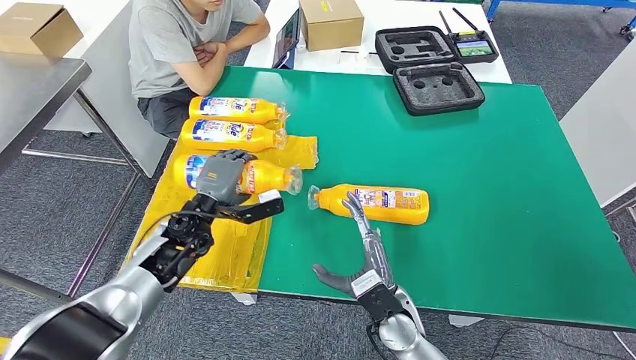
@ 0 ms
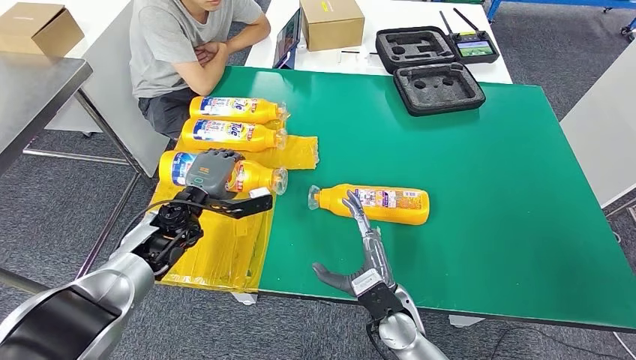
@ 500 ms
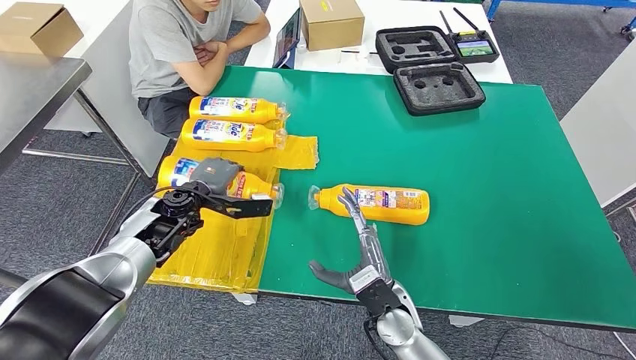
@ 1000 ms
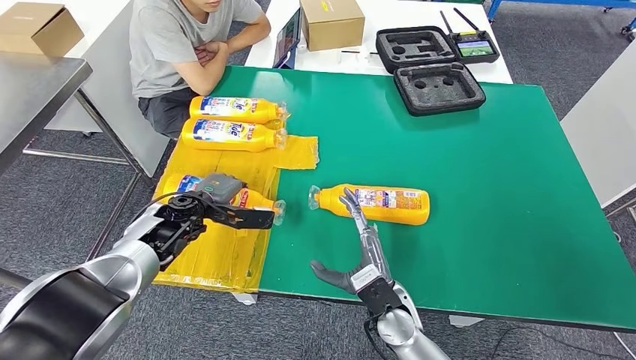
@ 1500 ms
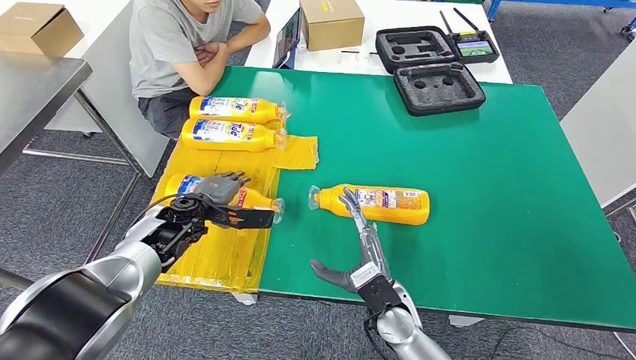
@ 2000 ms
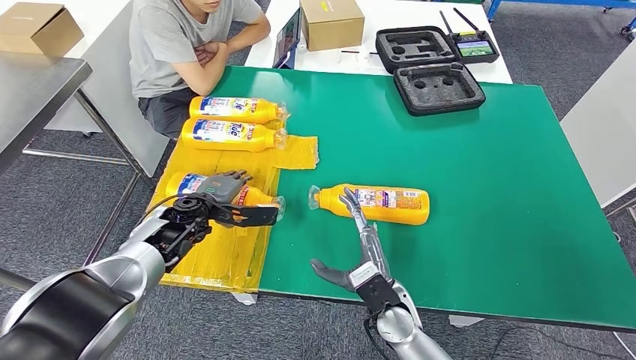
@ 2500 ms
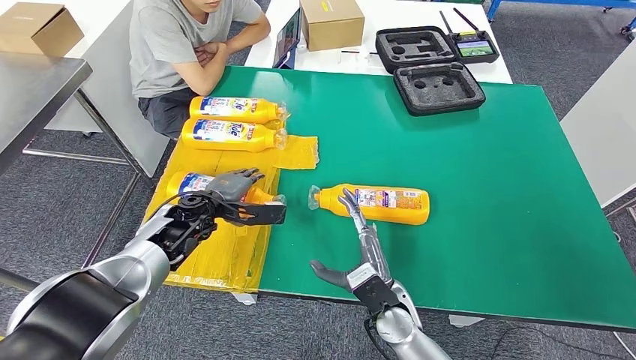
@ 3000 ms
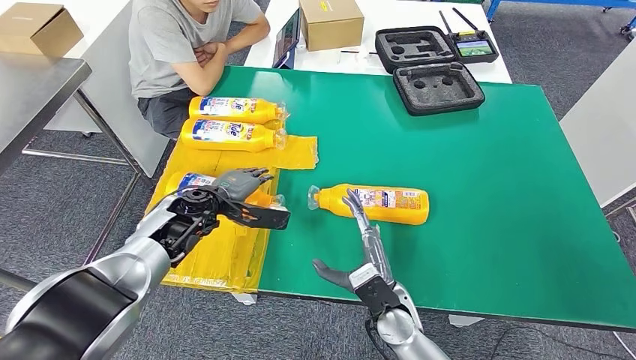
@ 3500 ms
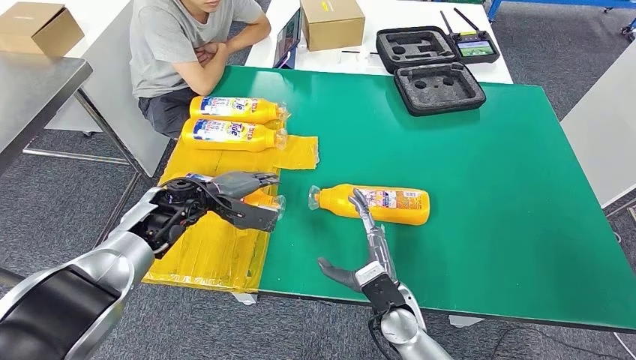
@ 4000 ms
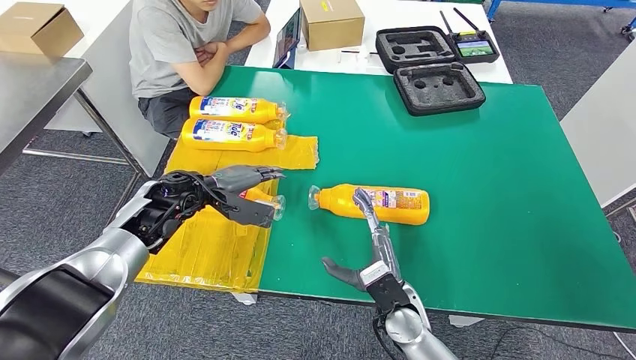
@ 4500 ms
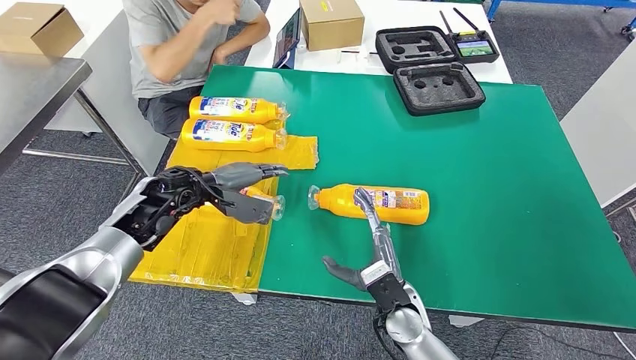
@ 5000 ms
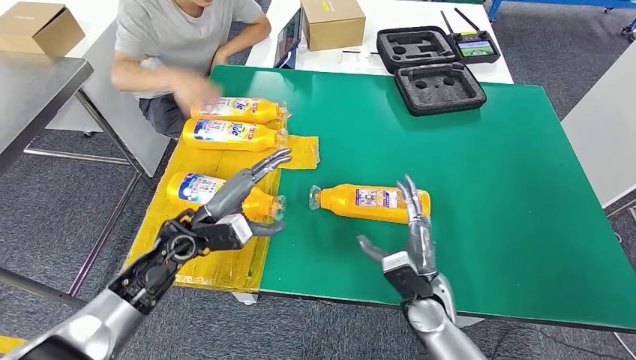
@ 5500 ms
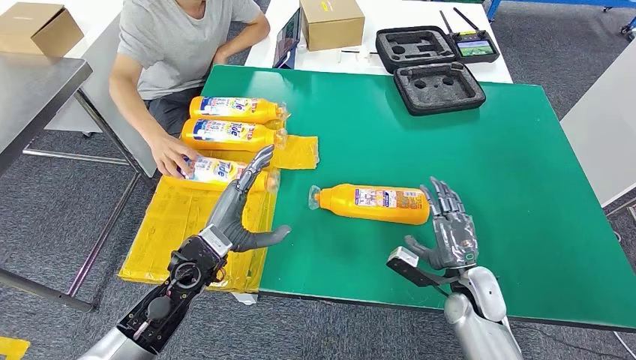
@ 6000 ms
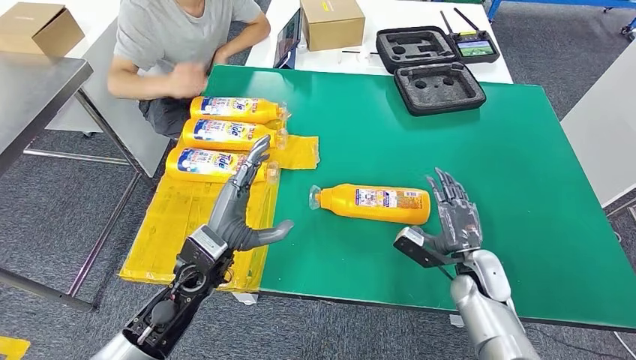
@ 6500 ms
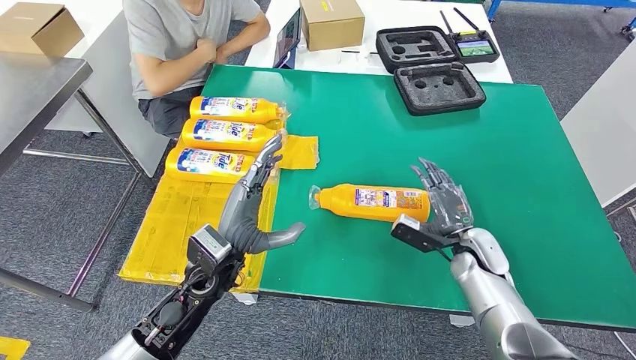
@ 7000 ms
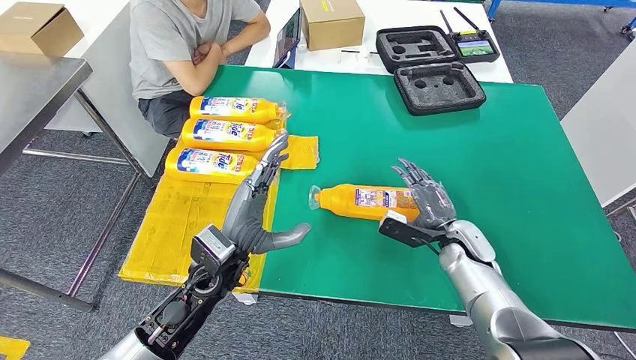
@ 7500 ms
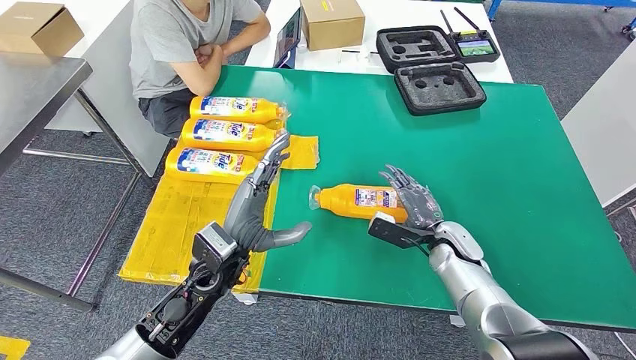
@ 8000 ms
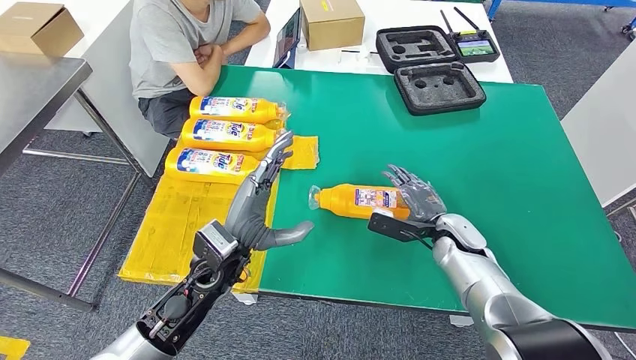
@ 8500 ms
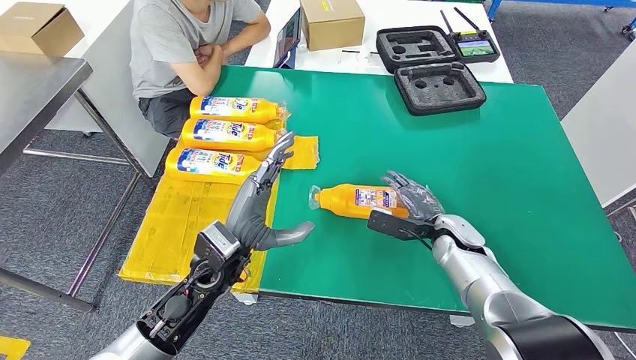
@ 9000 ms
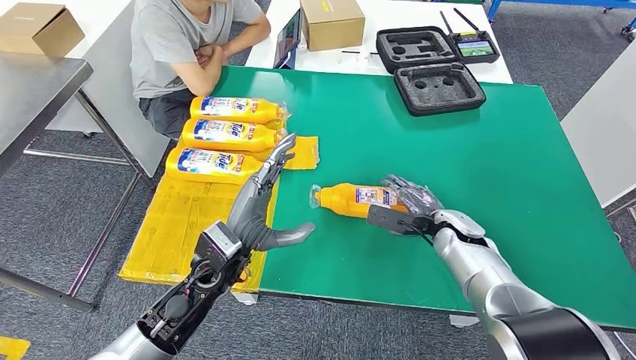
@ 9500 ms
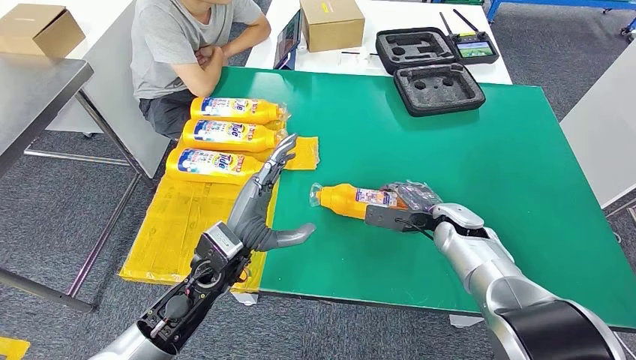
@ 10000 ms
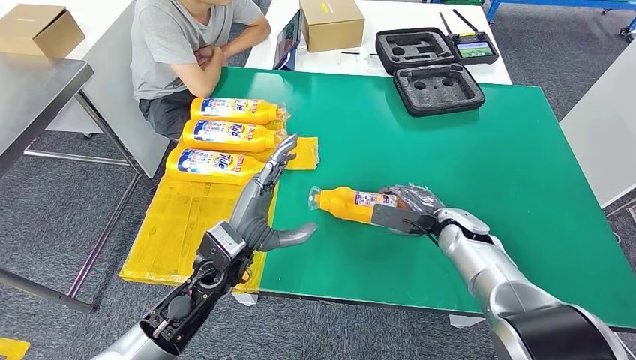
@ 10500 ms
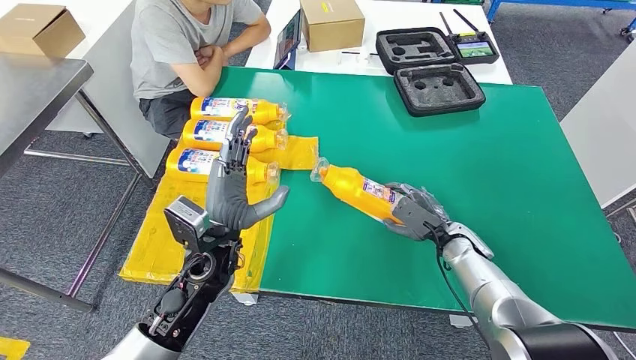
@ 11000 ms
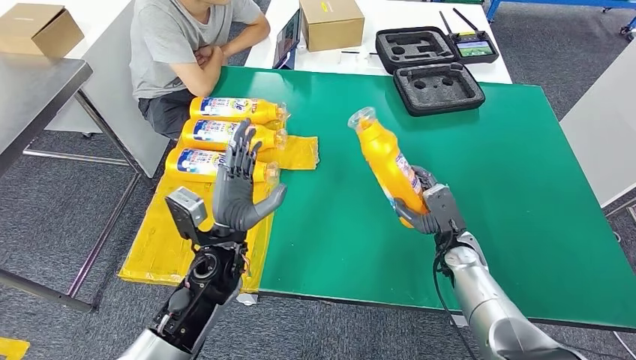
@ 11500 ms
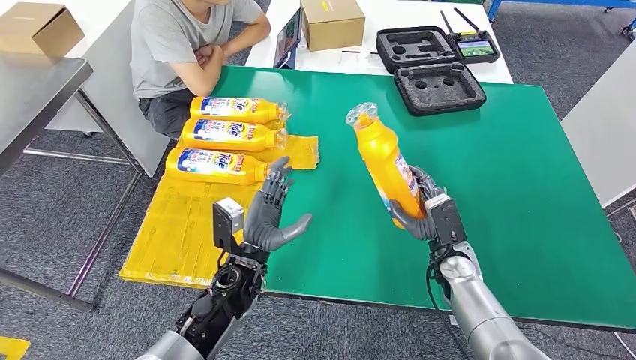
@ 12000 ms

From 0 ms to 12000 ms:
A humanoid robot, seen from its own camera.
Step, from 0 ms to 2000 ms: Flip the fast-moving consumer goods bottle to the front side.
From 6000 ms to 8000 ms: The left hand changes place by about 5 cm; the right hand heads forward, covering roughly 10 cm.
From 10000 ms to 12000 ms: The left hand heads downward, covering roughly 5 cm. The right hand travels backward by some 5 cm.

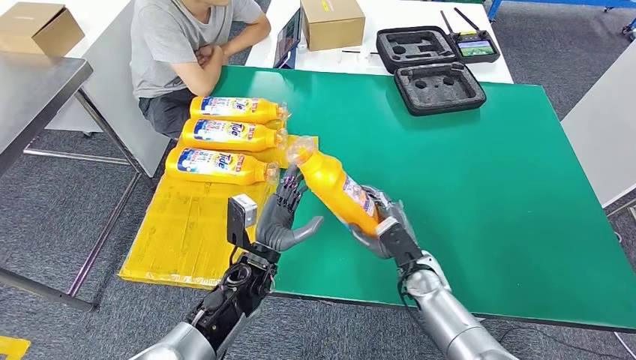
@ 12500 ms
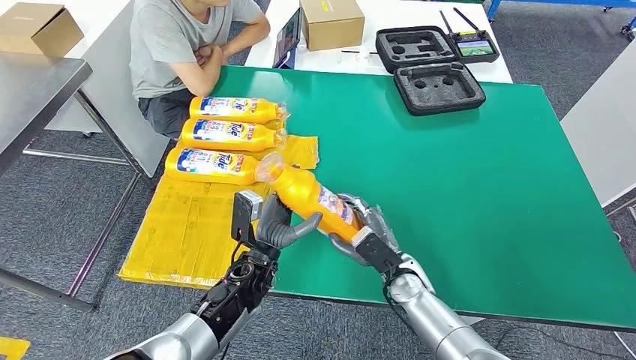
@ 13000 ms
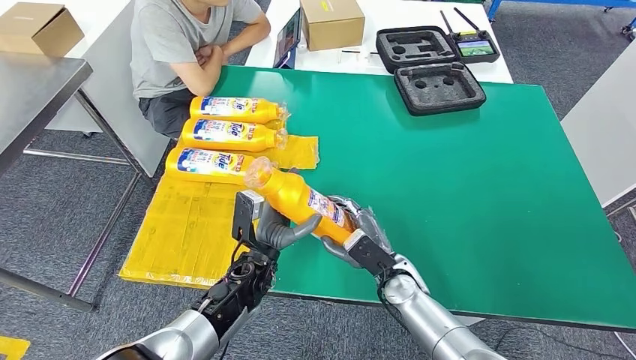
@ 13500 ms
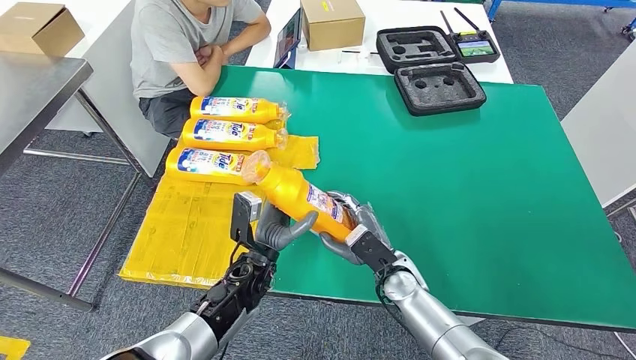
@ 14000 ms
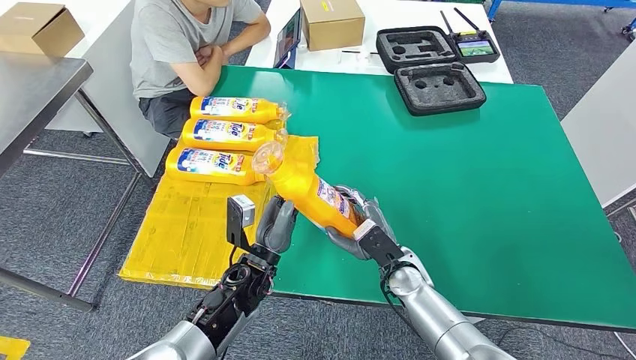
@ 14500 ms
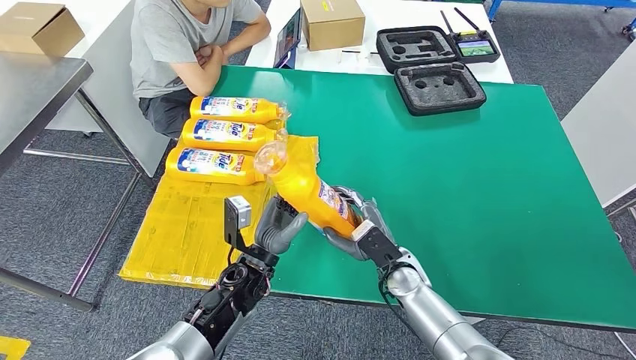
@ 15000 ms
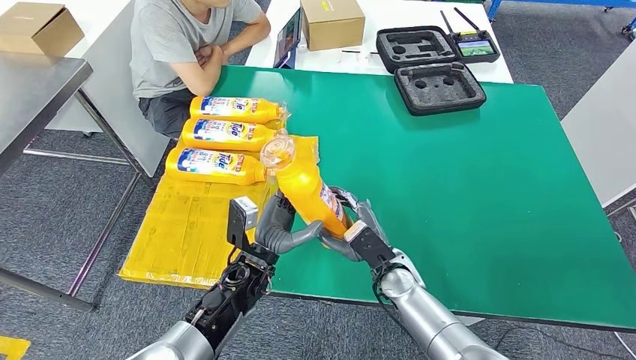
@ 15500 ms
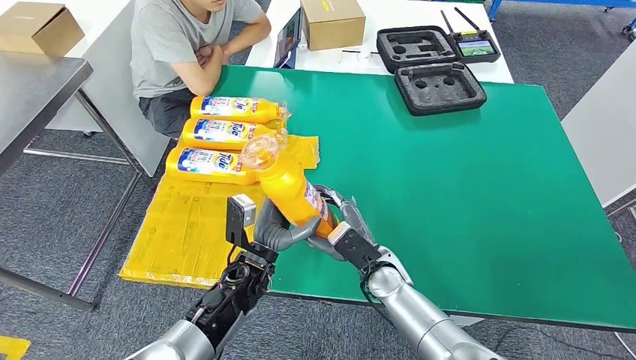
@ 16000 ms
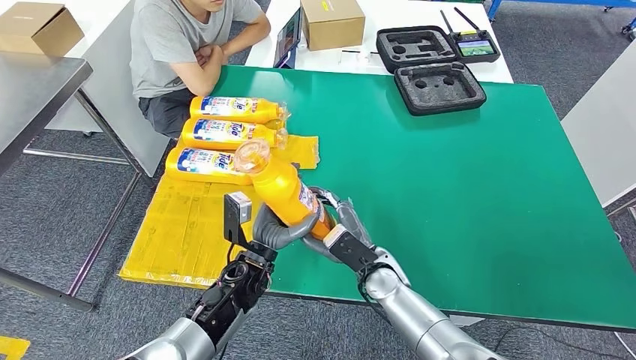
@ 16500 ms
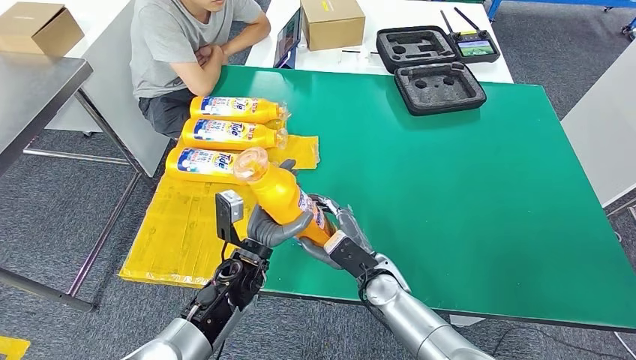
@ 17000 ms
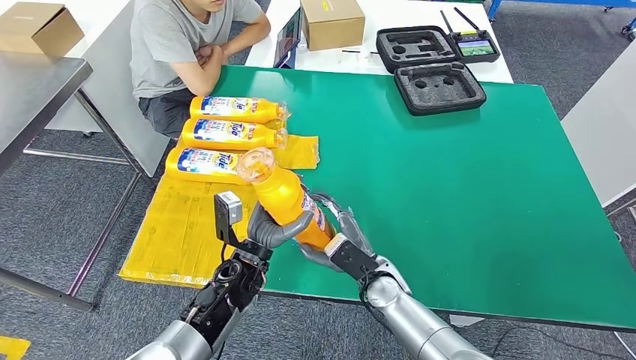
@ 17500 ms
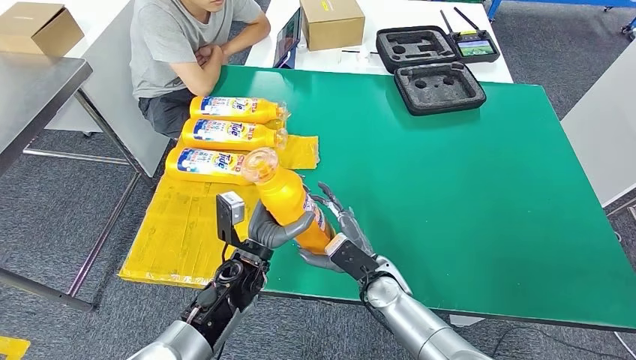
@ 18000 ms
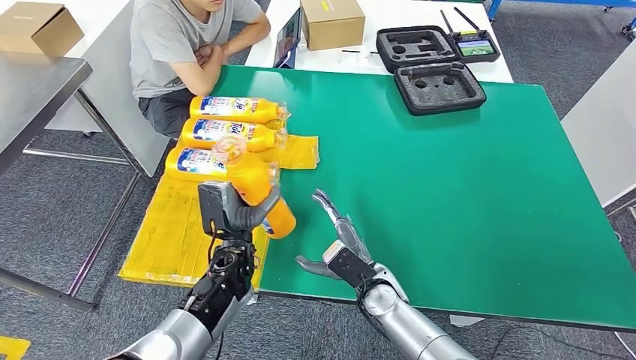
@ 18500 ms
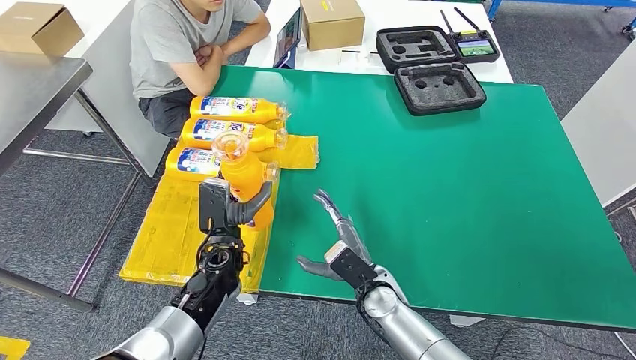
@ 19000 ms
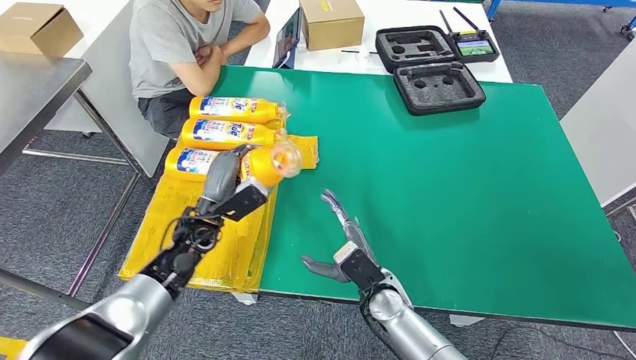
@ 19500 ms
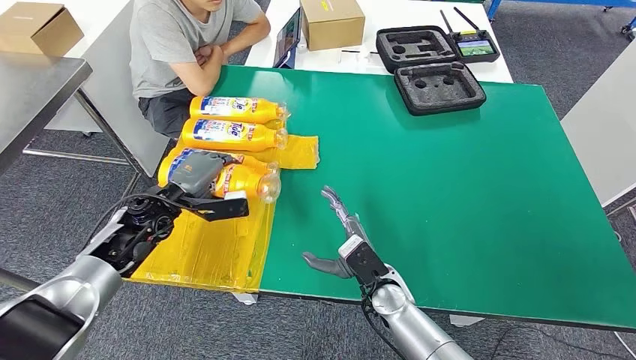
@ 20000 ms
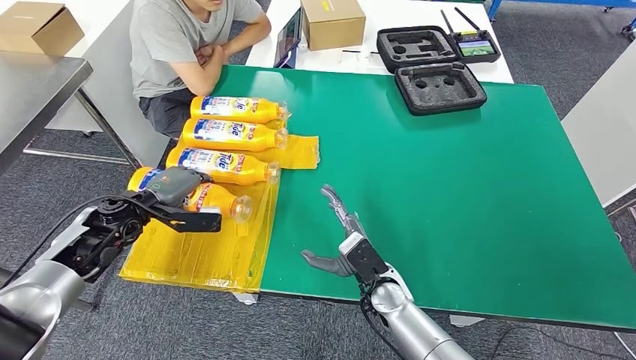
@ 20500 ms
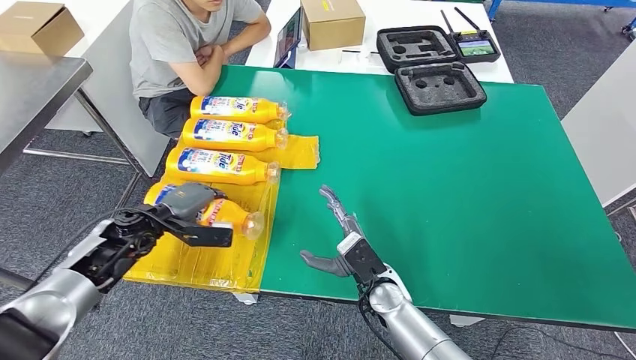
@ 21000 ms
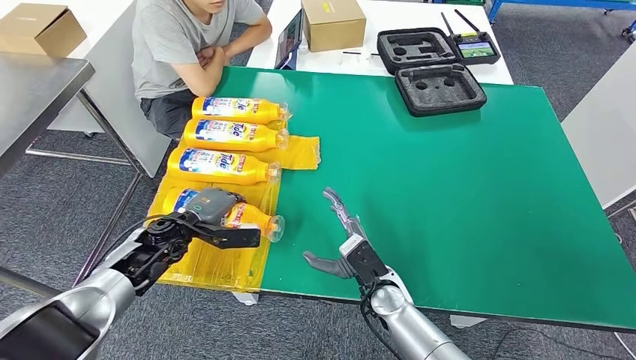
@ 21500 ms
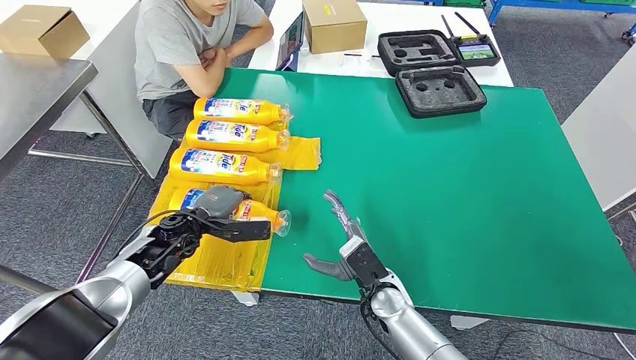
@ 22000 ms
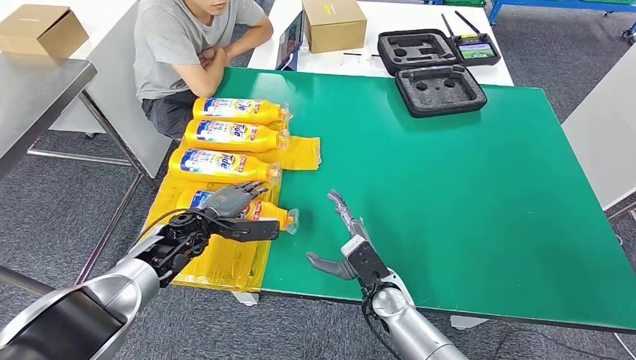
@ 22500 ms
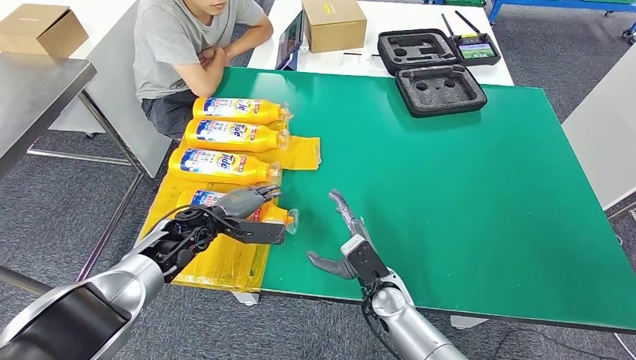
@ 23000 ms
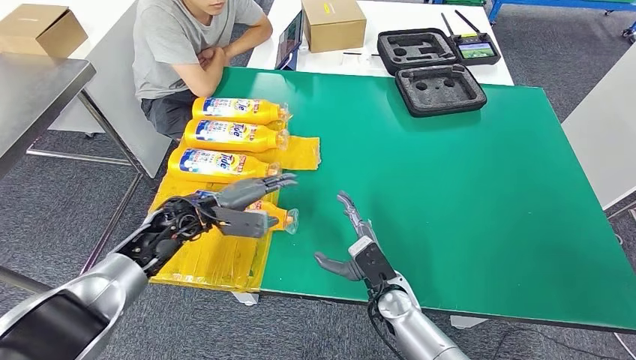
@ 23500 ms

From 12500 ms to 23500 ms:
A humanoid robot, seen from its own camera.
From 12500 ms to 14500 ms: There are only small adjustments of the hands.
From 14500 ms to 18000 ms: There are only small adjustments of the hands.
From 18000 ms to 20000 ms: The left hand heads to the left and forward, covering some 20 cm.
From 20000 ms to 21500 ms: The left hand is displaced downward by some 5 cm, and moves some 5 cm to the left and comes back.
From 21500 ms to 23500 ms: The left hand ends up some 5 cm from where it was.
